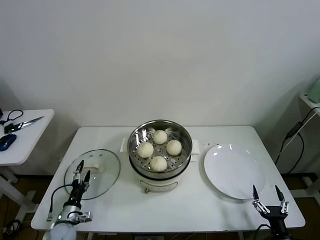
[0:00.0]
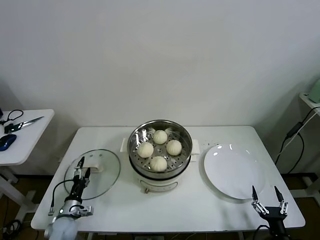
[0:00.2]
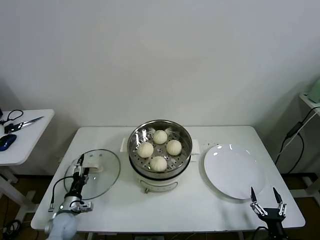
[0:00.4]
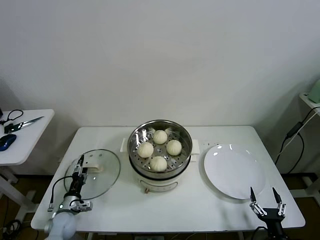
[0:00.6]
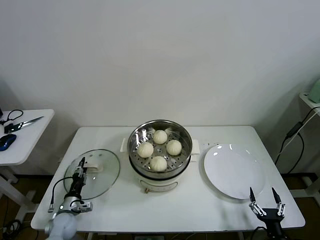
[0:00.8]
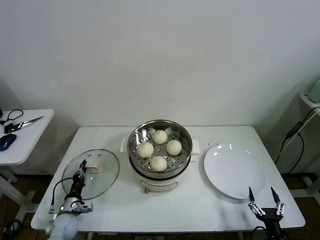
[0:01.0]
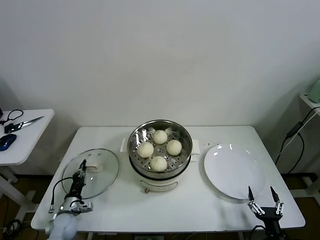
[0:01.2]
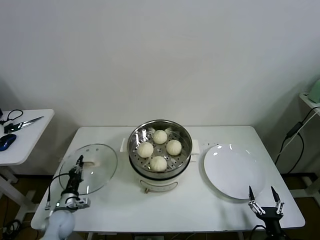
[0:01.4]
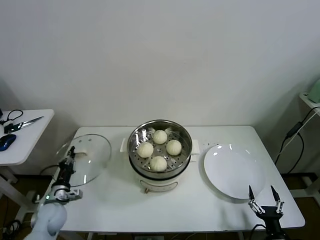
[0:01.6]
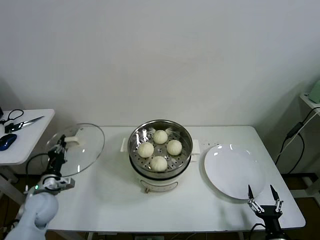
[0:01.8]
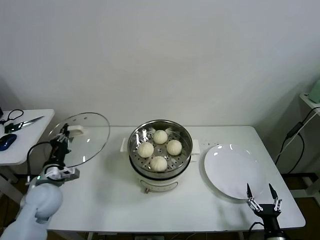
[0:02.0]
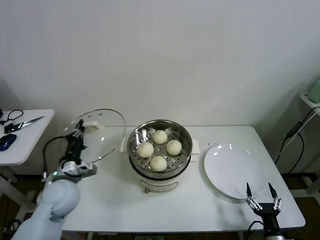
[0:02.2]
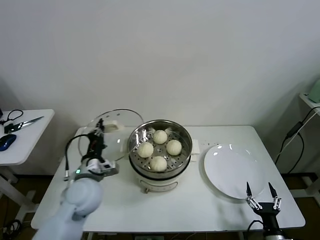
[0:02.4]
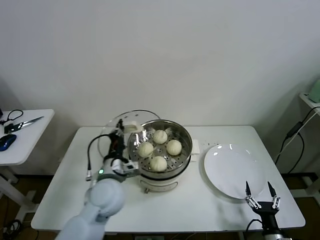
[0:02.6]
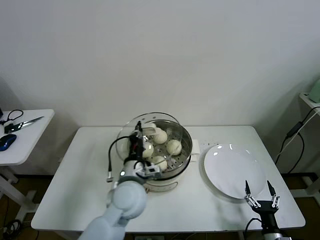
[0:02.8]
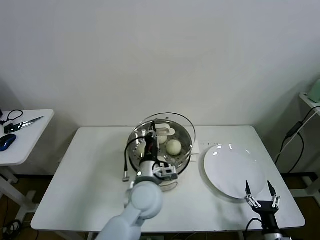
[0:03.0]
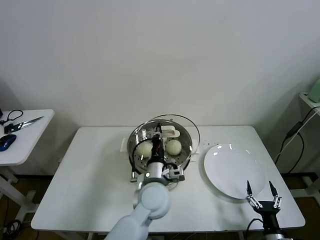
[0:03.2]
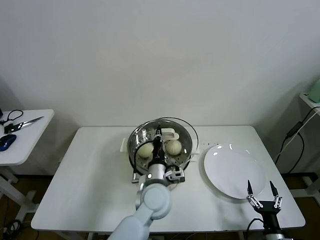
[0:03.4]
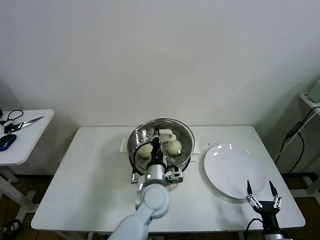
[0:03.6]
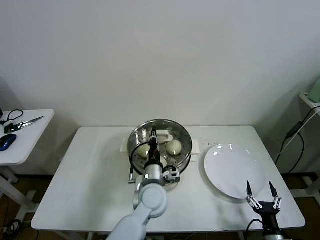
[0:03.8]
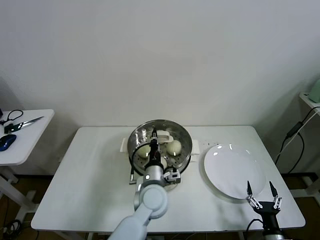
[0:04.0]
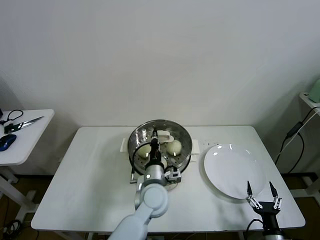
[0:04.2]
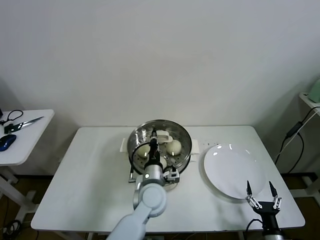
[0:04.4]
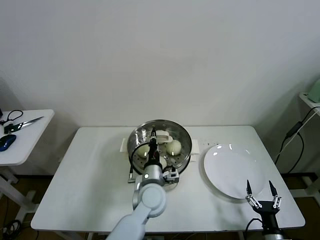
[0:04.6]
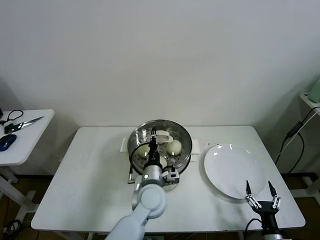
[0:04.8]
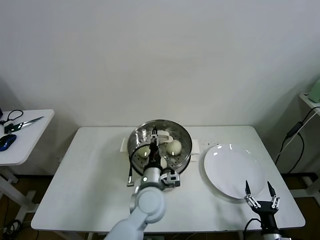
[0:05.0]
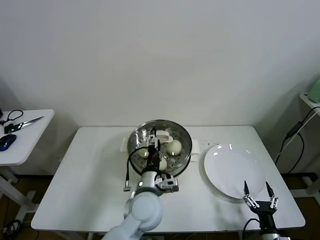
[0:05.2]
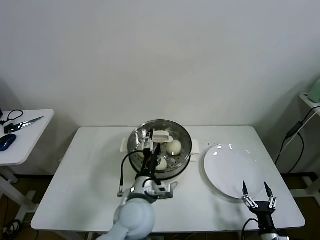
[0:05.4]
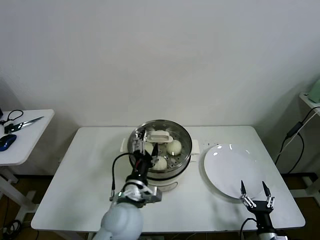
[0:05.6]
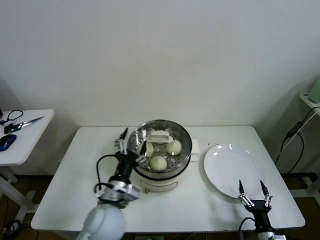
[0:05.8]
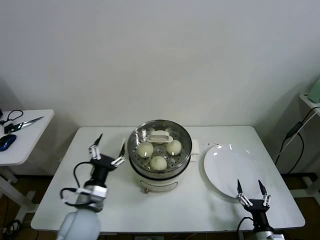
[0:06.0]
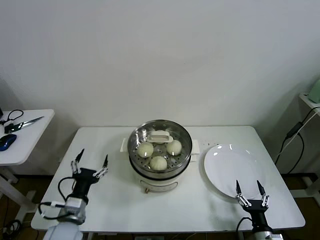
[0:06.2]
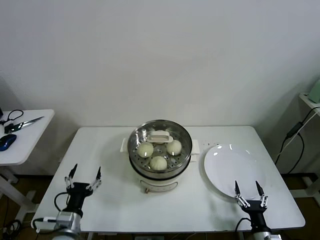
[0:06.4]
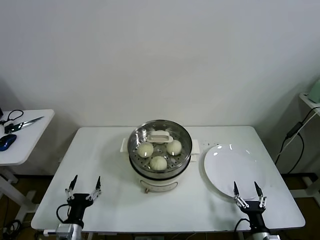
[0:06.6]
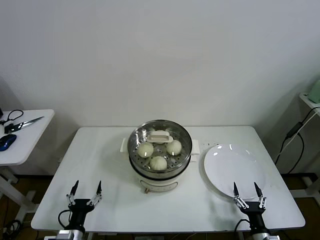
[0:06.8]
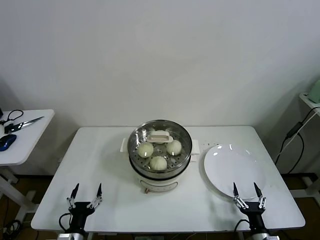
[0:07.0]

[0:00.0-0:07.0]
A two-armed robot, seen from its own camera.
Task of the whole recording: take steamed baozi put them in steamer then cover it.
Step, 1.4 to 4.8 s: Place the pot lid on the steamer with left gripper.
0.0 to 1.4 s: The left gripper closes.
1.4 to 2.8 s: The left gripper moves to the right and upward, approximately 35 cm.
2.8 to 4.2 s: The left gripper is displaced to the right and downward by roughly 10 cm.
4.2 to 5.6 s: The left gripper shifts about 10 cm backward and to the left, and opens its fingers.
5.6 to 7.0 s: The left gripper moves to the left, downward and backward, about 30 cm.

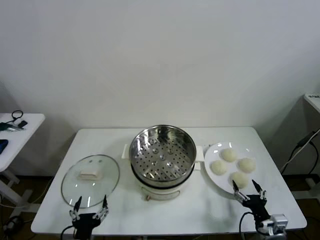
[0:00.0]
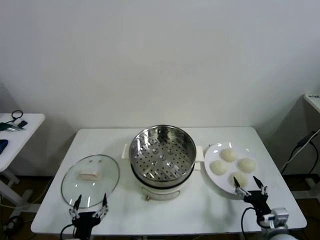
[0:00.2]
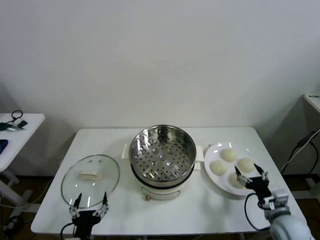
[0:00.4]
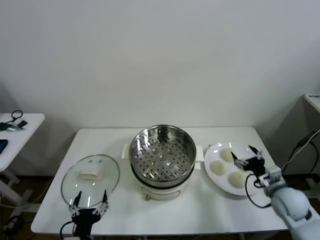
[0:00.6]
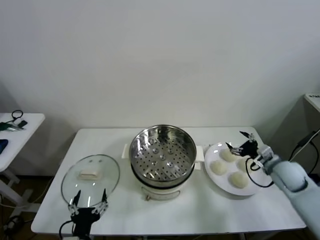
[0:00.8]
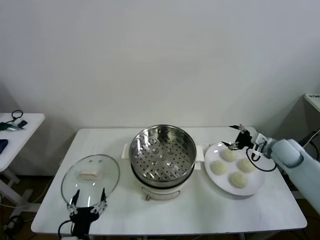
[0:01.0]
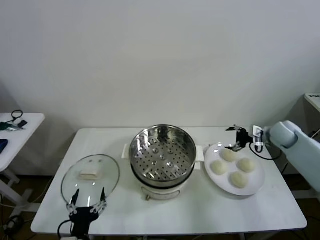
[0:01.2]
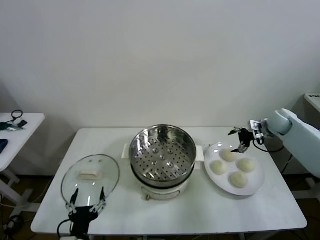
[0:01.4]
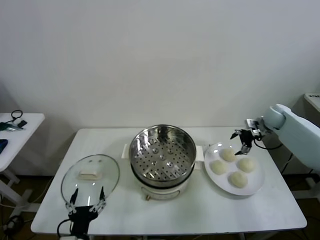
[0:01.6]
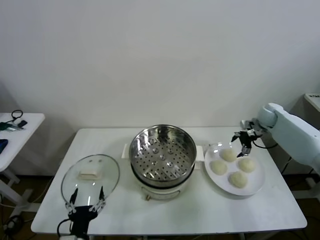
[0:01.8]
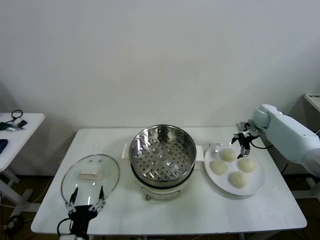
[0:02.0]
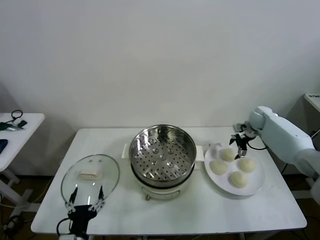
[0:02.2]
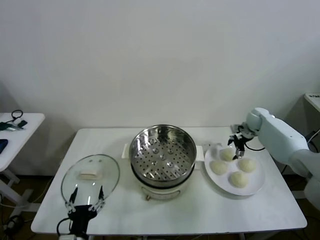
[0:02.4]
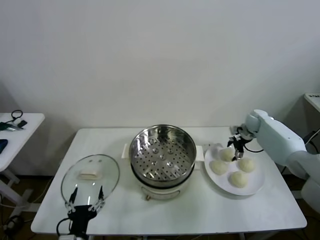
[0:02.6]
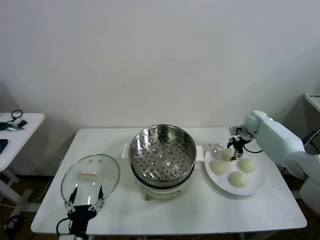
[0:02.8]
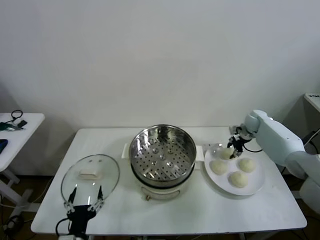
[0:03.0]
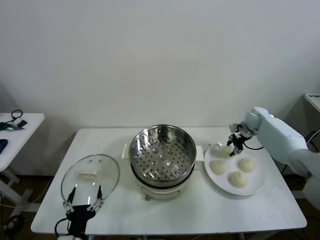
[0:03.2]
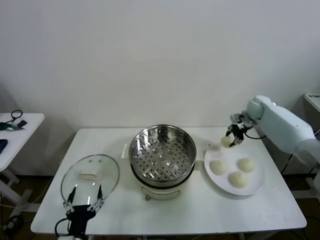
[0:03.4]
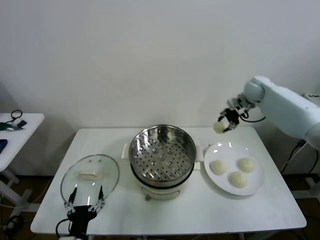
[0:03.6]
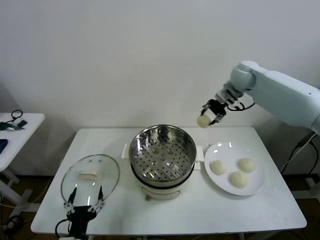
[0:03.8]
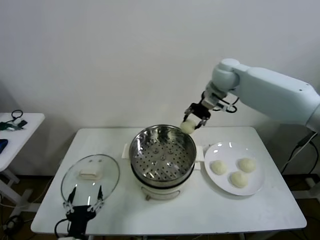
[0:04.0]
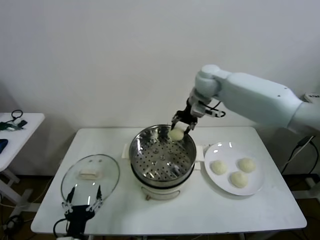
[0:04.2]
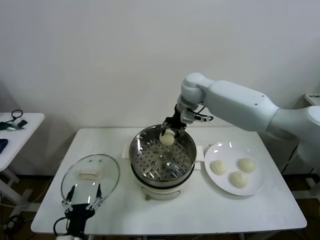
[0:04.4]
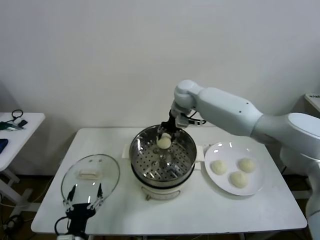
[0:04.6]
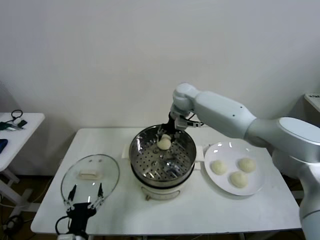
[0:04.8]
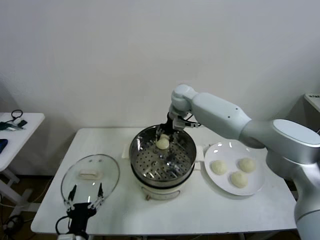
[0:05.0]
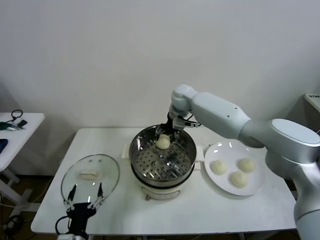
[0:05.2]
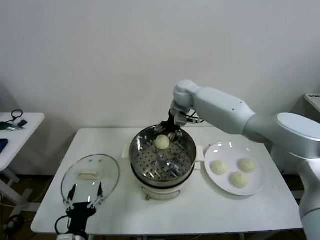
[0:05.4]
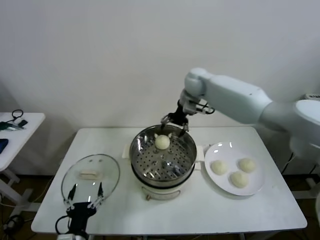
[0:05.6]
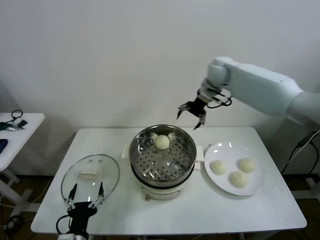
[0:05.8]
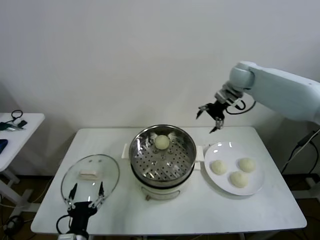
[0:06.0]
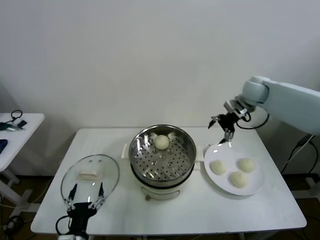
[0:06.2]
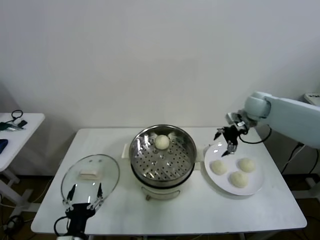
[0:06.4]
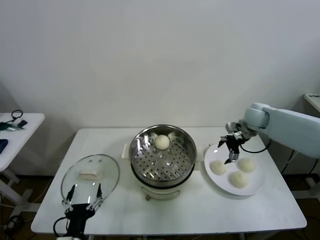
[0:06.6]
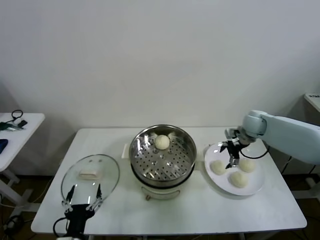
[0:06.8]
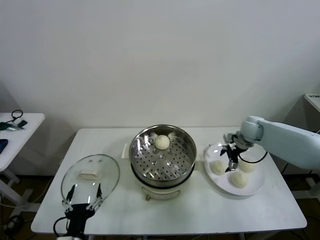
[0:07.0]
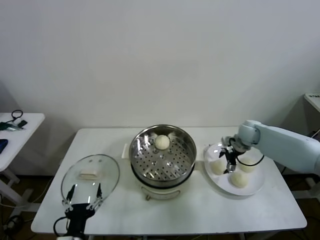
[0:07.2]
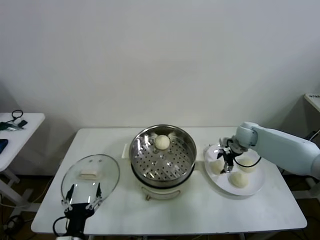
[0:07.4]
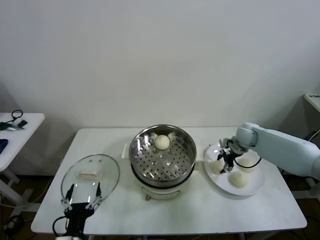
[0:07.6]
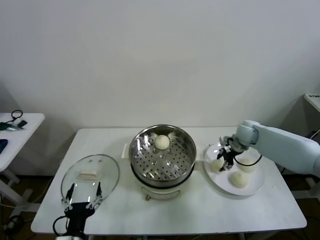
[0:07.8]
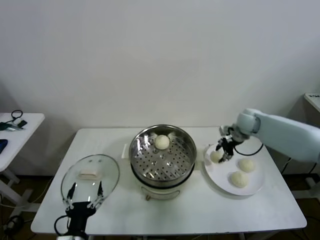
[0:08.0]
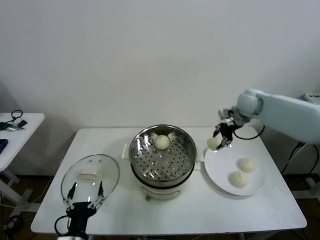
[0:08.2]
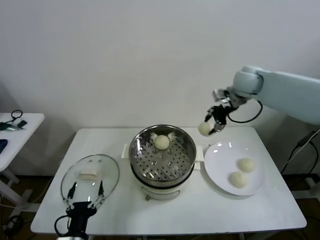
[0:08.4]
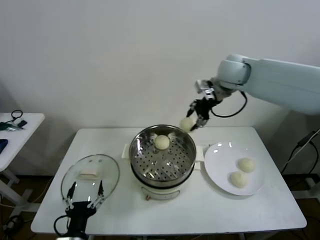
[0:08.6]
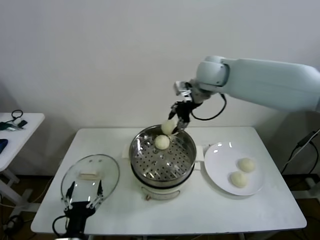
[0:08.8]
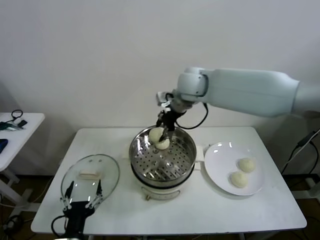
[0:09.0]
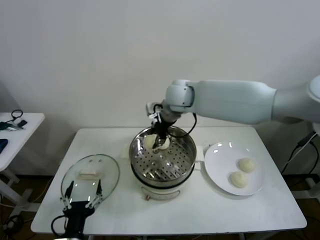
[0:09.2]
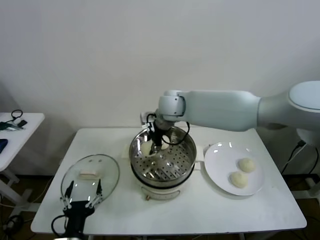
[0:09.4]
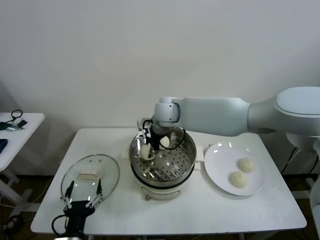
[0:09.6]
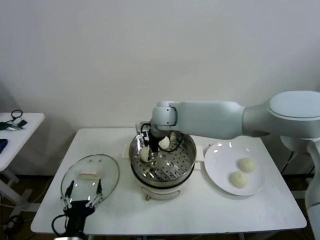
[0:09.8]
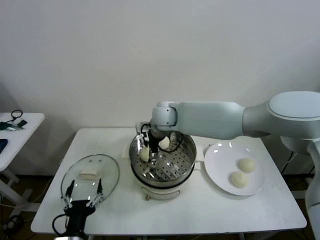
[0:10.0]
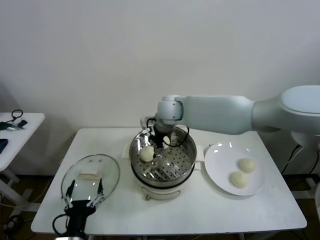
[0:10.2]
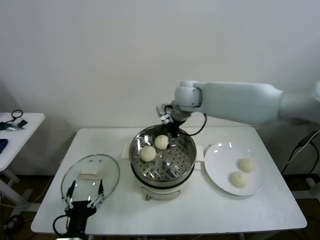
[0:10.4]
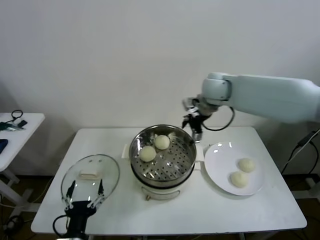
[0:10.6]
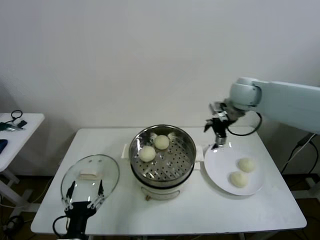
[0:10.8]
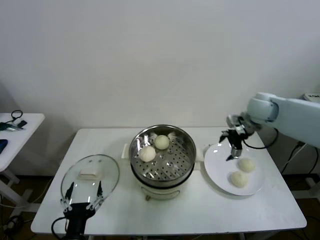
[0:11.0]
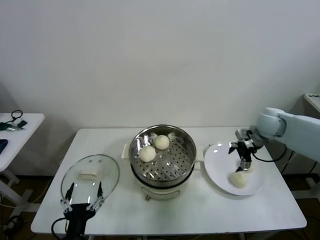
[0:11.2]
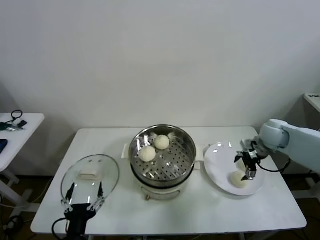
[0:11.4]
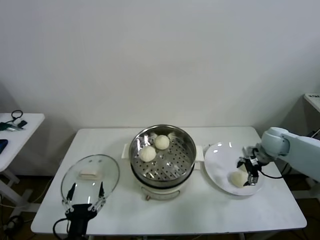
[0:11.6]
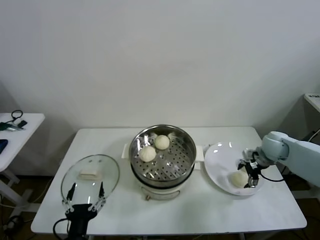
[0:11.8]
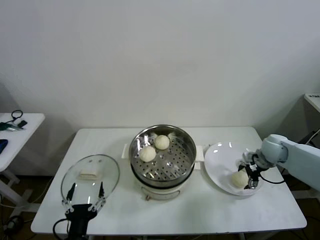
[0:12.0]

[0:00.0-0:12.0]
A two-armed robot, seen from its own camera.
Task of the whole recording: take steamed baozi put them in steamer then cover it.
Step, 0.0 to 3.0 s: Grasp the baozi in the plate with right gripper.
Step, 3.2 to 5.4 s: Place the baozi on the steamer with right gripper.
Step, 5.6 to 7.6 s: Grasp the baozi in the plate with right gripper.
Step, 8.0 to 10.2 s: Place the baozi on the steamer with right gripper.
1.6 to 3.0 s: The right gripper shifts roughly 5 cm downward, and closes.
3.0 to 4.4 s: The right gripper goes some 35 cm to the left and upward.
4.4 to 6.0 s: The right gripper is displaced to the right by some 20 cm, and opens.
6.0 to 7.6 s: The right gripper moves downward, approximately 20 cm, and closes.
7.6 to 9.0 s: The right gripper is displaced to the left and upward by approximately 35 cm.
9.0 to 10.4 s: The right gripper moves approximately 10 cm downward and comes back, and opens.
10.4 to 12.0 s: The right gripper goes roughly 35 cm to the right and downward.

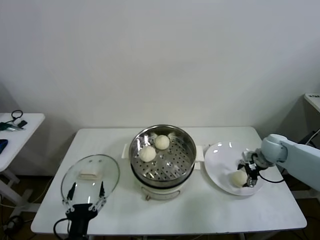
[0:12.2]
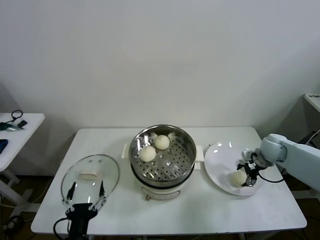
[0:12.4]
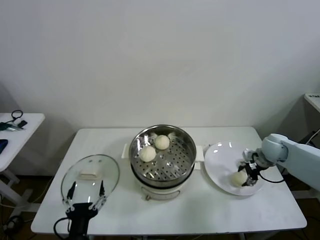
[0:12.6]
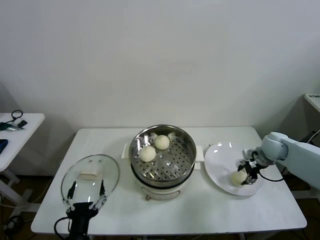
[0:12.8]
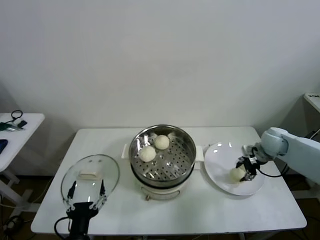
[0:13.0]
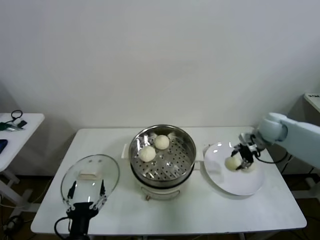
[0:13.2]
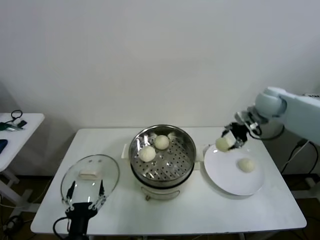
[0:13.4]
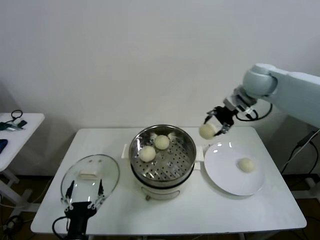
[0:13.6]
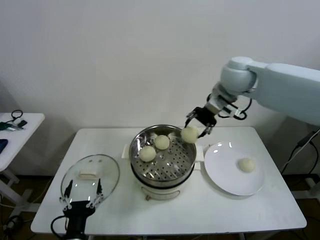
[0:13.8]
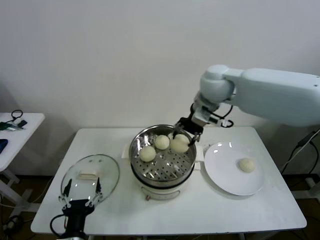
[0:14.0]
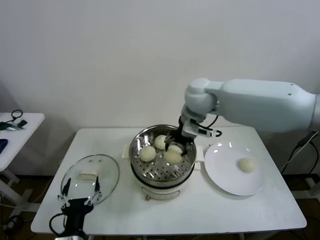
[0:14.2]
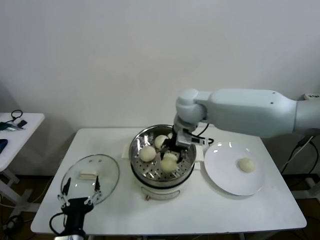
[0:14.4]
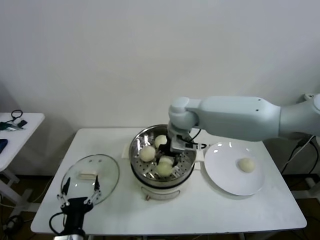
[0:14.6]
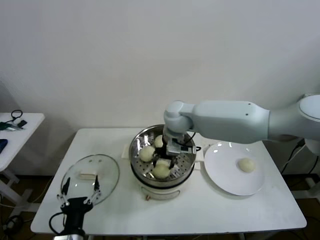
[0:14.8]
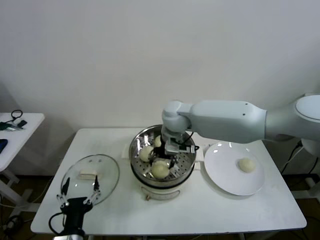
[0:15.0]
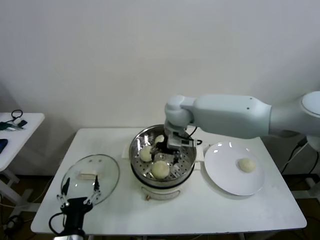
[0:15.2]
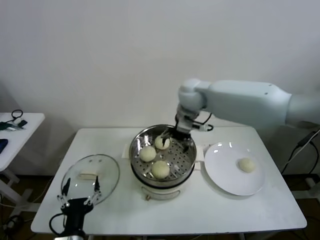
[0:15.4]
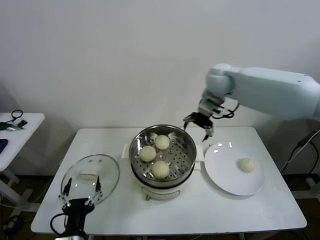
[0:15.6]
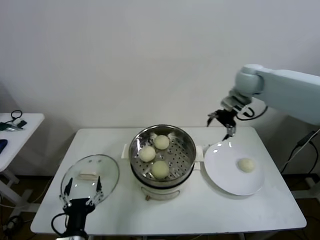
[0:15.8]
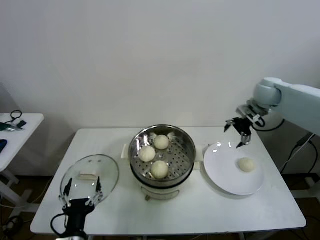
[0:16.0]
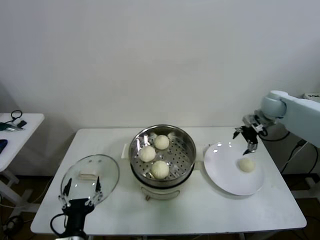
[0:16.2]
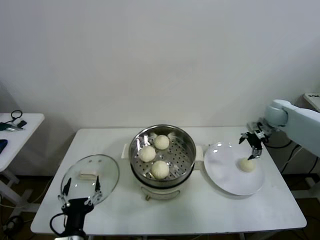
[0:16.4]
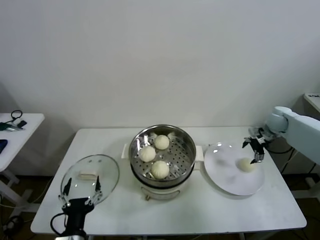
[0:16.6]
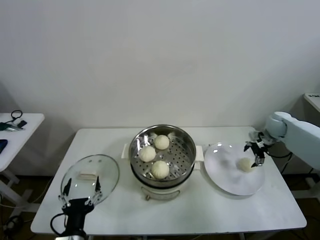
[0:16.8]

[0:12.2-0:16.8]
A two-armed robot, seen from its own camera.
Task of the whole recording: take steamed baozi put them in steamer then cover it.
Step, 13.0 to 15.0 s: Place the baozi on the steamer with right gripper.
12.2 to 13.8 s: The right gripper travels upward and to the left by some 35 cm, and closes its fingers.
13.8 to 15.2 s: The right gripper moves to the left and downward, approximately 20 cm, and opens.
15.2 to 16.8 s: The right gripper travels to the right by some 40 cm.
